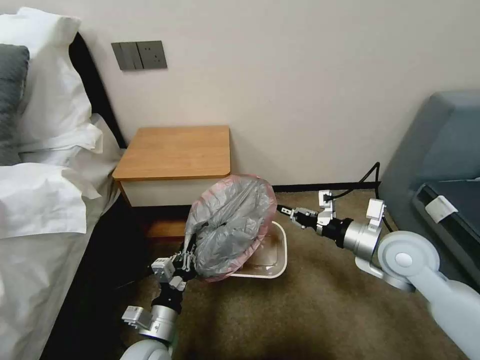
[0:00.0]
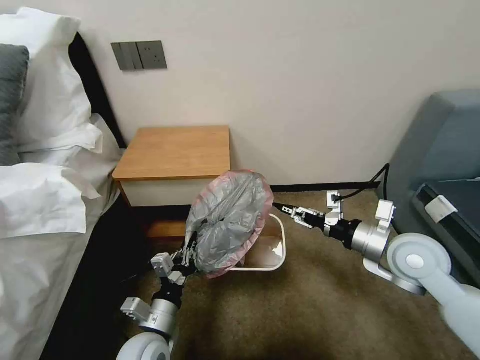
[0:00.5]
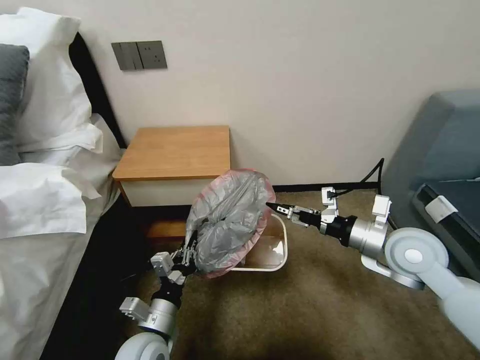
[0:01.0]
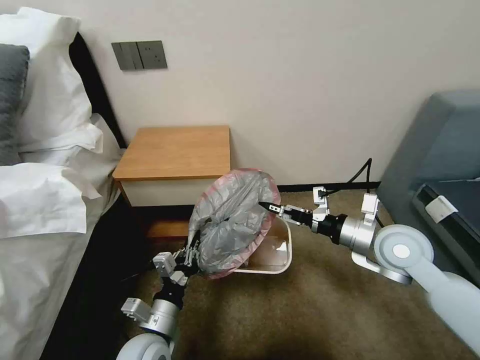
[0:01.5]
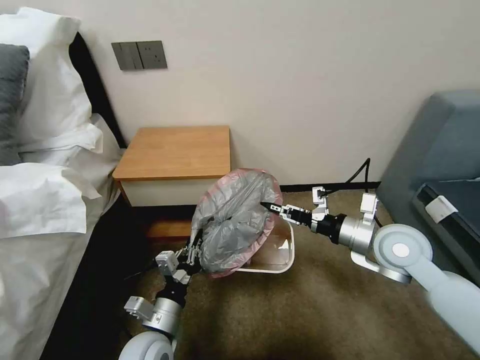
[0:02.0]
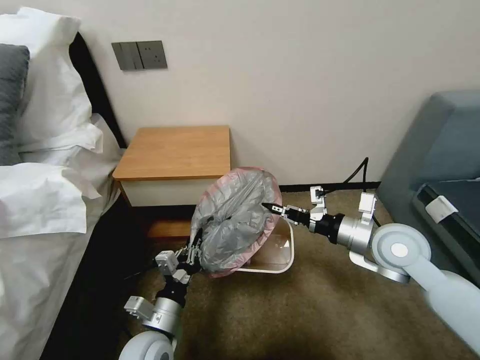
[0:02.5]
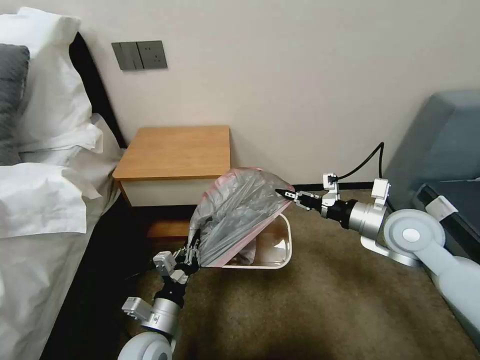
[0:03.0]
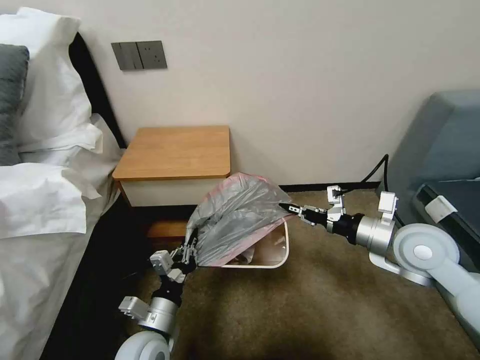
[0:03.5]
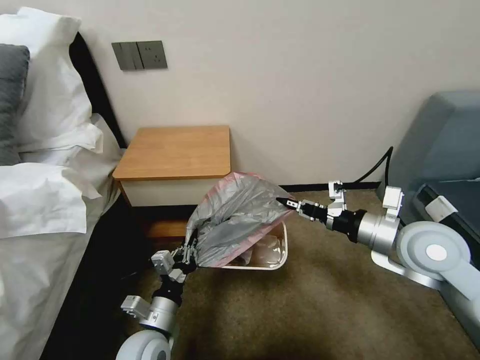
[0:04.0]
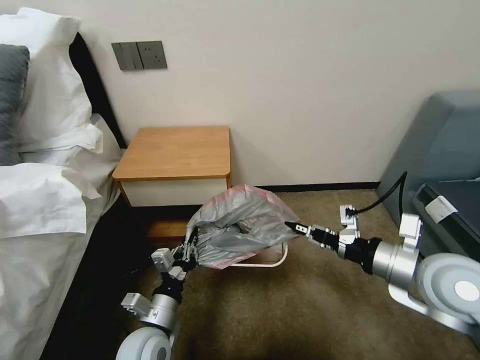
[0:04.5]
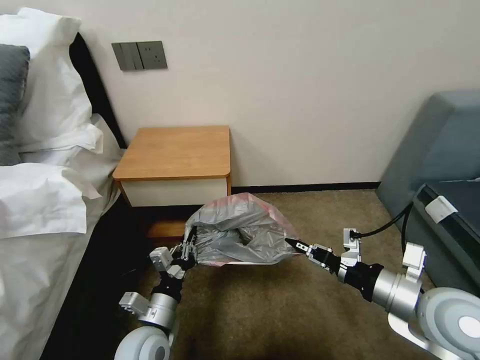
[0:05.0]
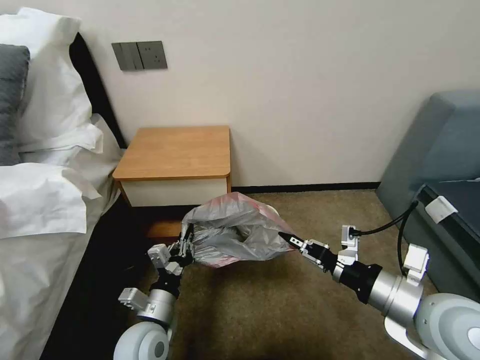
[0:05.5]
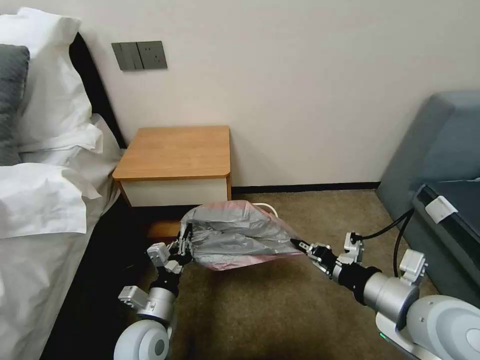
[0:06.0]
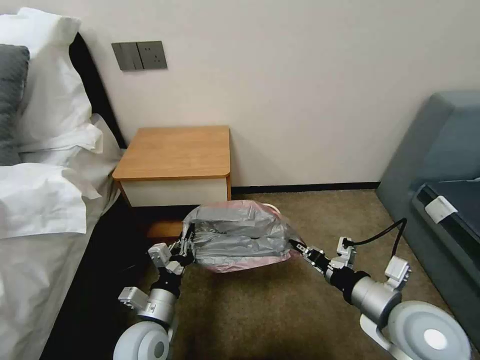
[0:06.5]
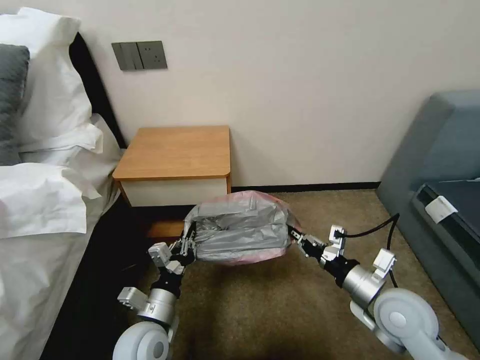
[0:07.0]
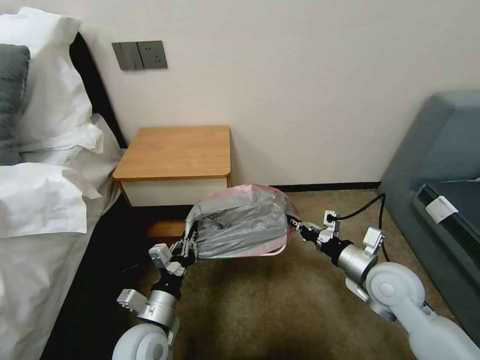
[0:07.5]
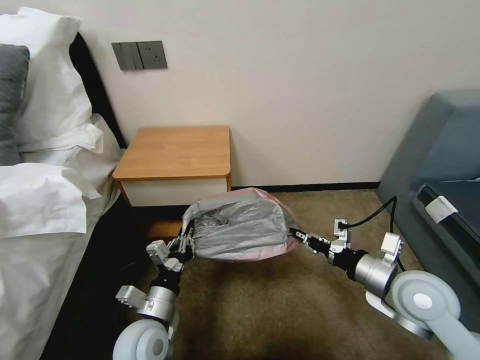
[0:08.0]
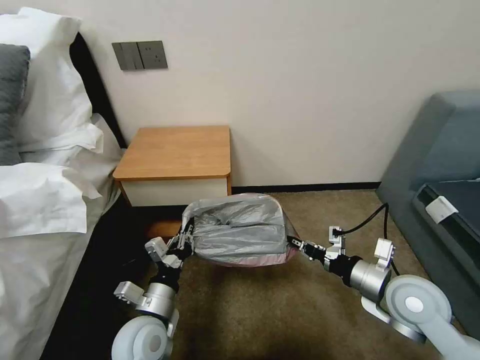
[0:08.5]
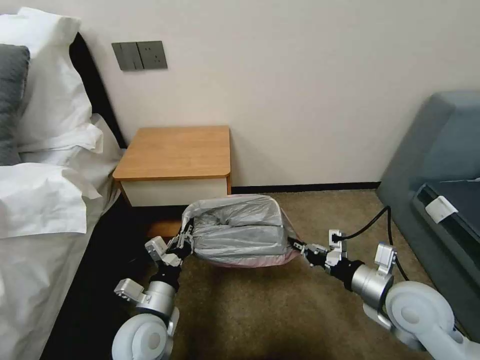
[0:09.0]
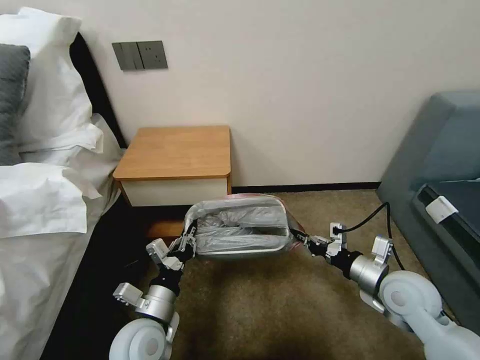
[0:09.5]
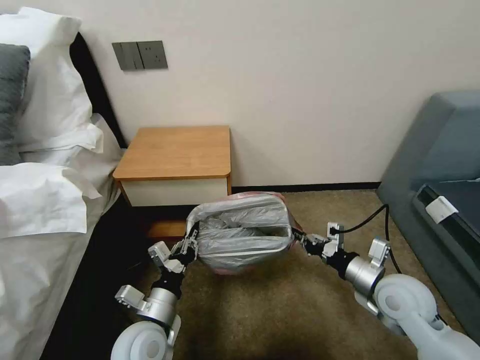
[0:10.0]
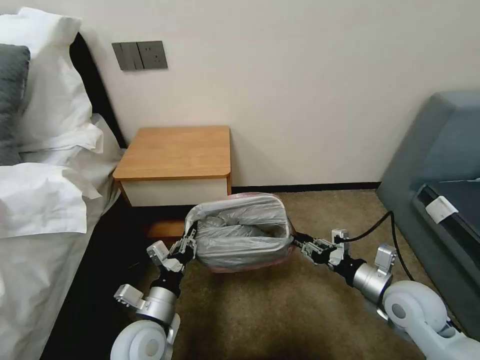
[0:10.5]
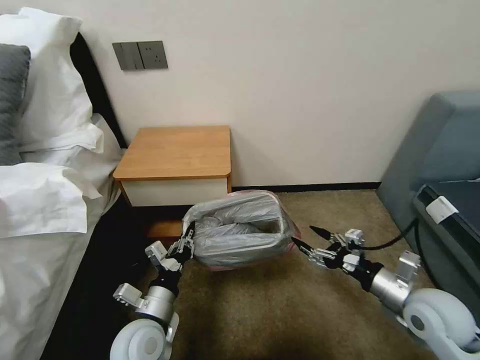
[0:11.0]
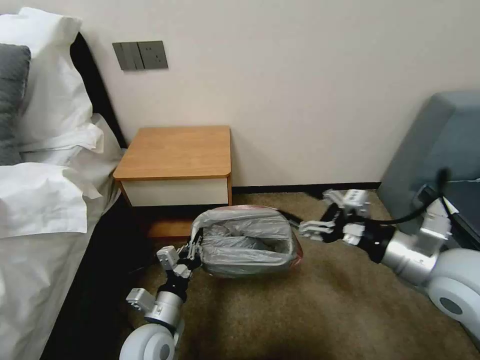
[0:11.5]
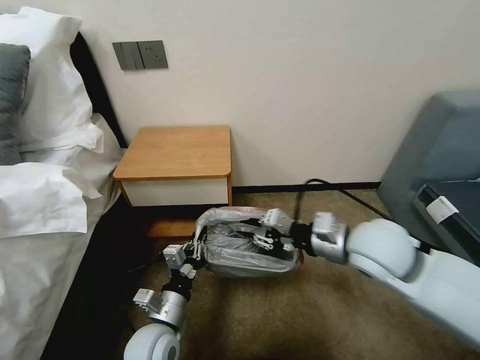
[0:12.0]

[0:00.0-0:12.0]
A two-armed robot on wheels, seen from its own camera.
Task of the whole recording: Pick up the garbage bag from the table and place it over the trash can.
0:00.0 to 0:02.0: The right gripper opens, then closes once more.
0:02.0 to 0:04.0: The right gripper changes place by approximately 5 cm.
0:04.0 to 0:06.0: The right gripper travels backward by approximately 10 cm.
0:06.0 to 0:08.0: The right gripper moves forward and downward, approximately 10 cm.
0:08.0 to 0:10.0: There are only small adjustments of the grippers.
0:10.0 to 0:12.0: The right gripper shifts roughly 15 cm upward and to the left, and opens and closes again.

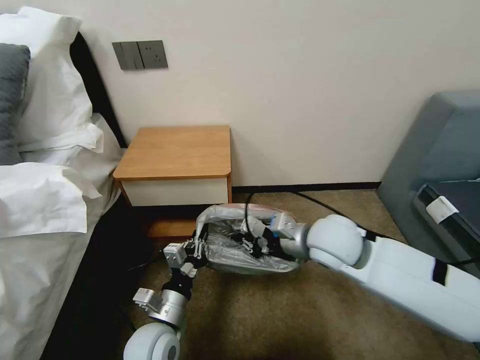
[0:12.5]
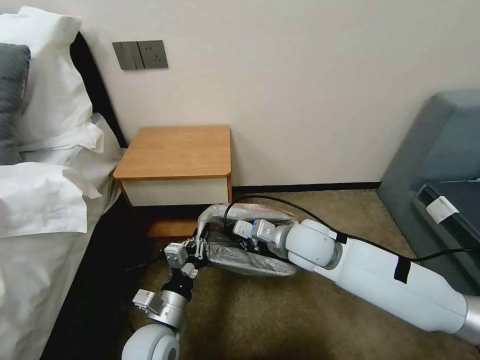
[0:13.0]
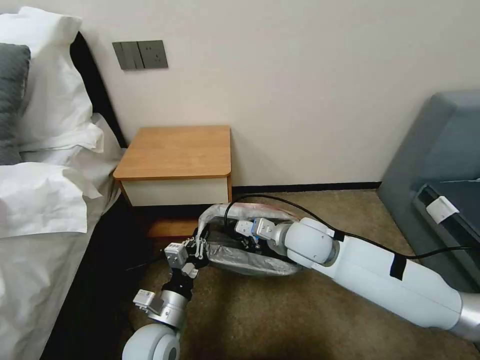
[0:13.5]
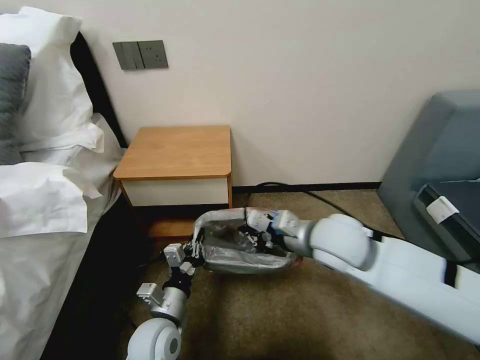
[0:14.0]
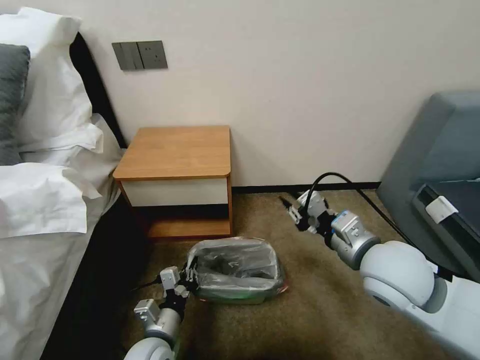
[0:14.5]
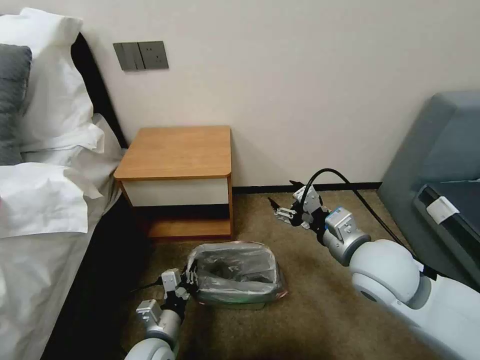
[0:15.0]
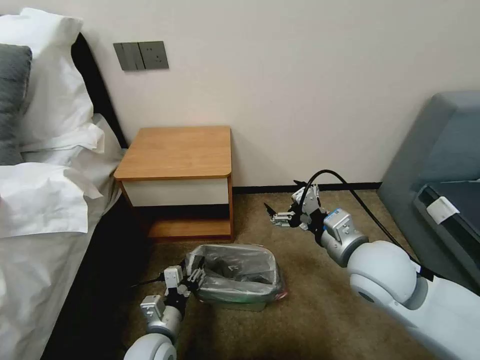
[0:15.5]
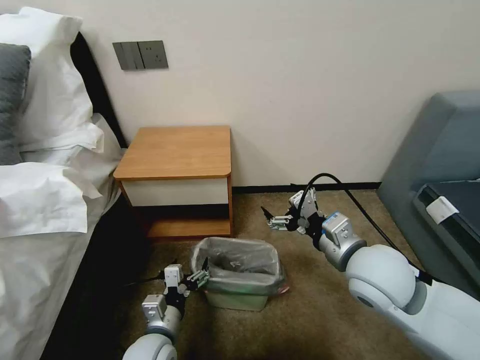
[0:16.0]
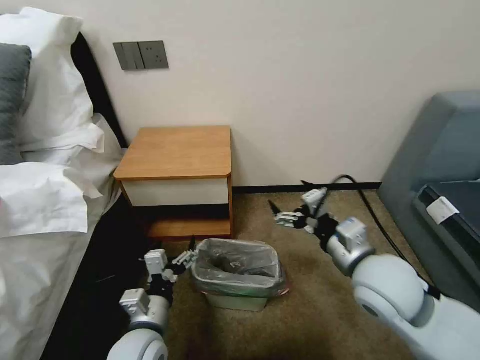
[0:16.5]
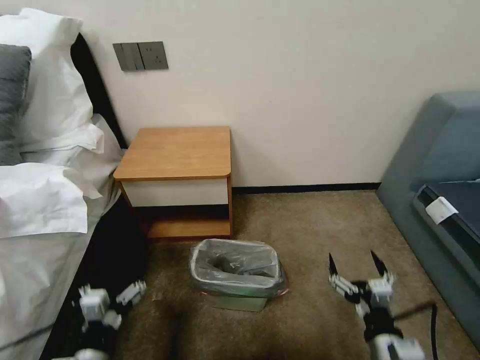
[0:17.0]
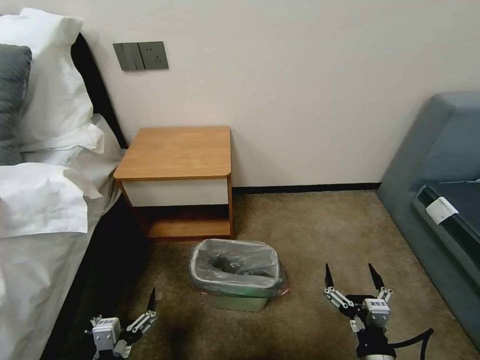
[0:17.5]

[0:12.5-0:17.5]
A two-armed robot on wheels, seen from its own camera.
Task of the whole recording: Pick up the garbage bag from the table and place it over the trash can.
0:12.5 to 0:15.0: The left gripper travels downward by about 5 cm. Meanwhile the right gripper shifts roughly 10 cm backward and to the right, and opens.
0:15.0 to 0:17.5: The right gripper travels backward and downward by roughly 25 cm, while the left gripper shifts about 15 cm backward and to the left, and opens up.

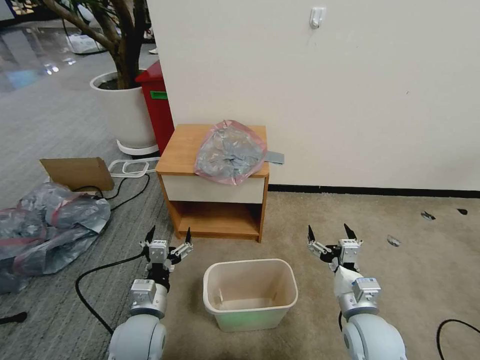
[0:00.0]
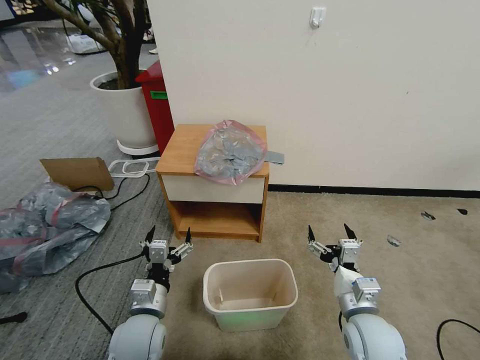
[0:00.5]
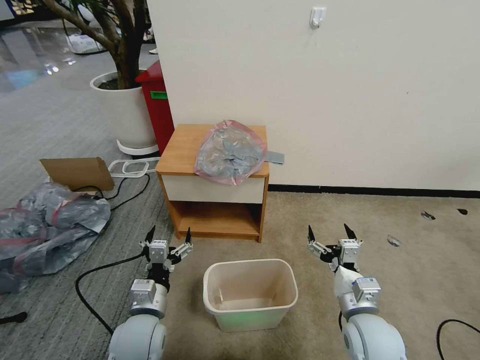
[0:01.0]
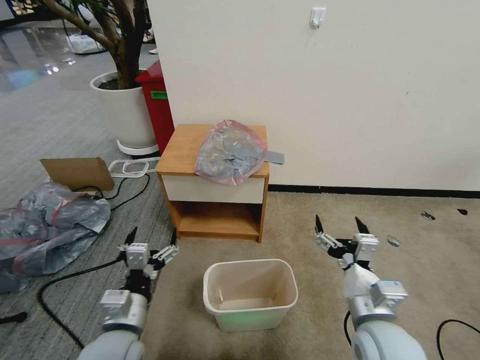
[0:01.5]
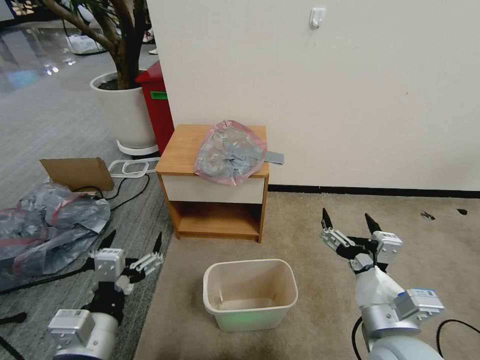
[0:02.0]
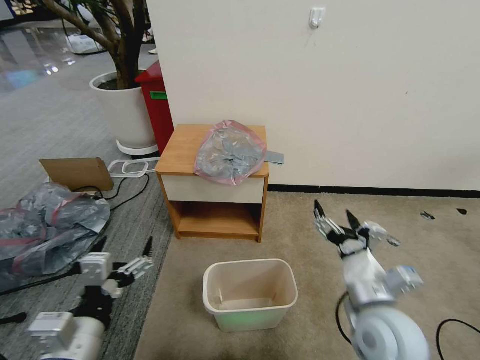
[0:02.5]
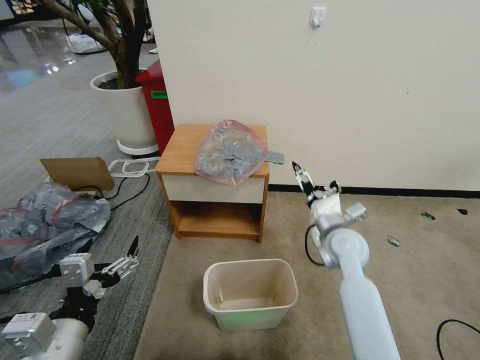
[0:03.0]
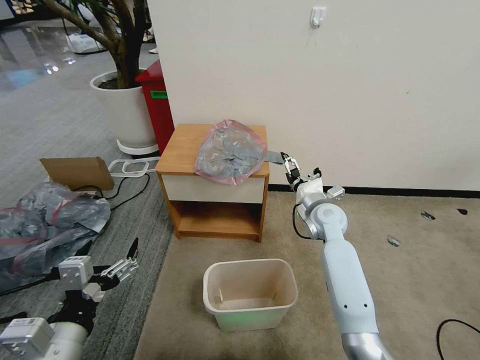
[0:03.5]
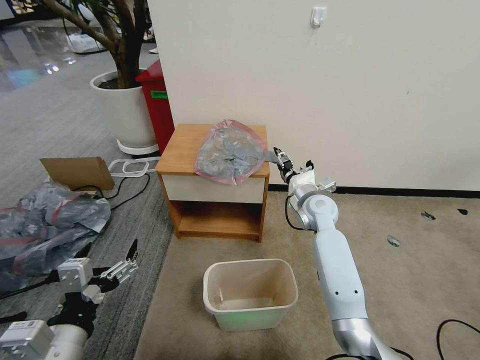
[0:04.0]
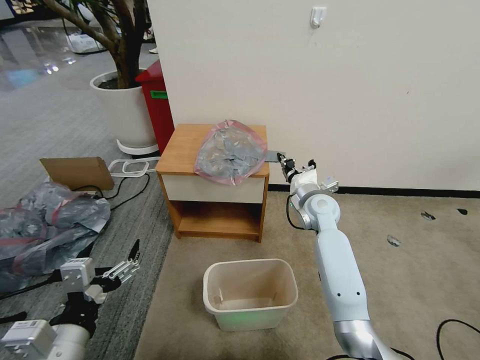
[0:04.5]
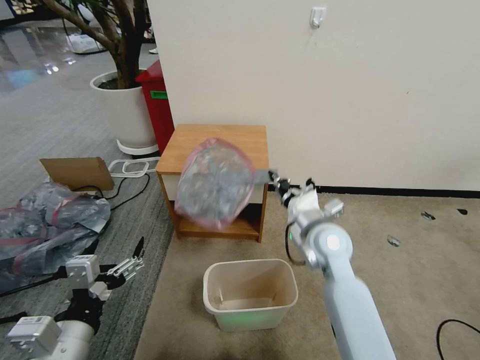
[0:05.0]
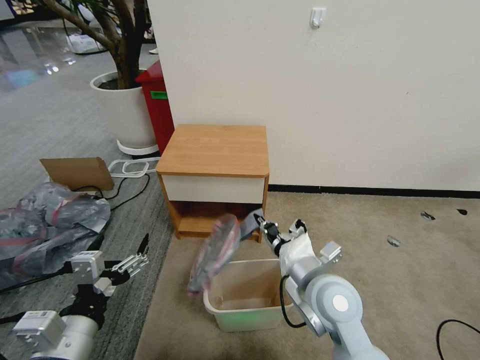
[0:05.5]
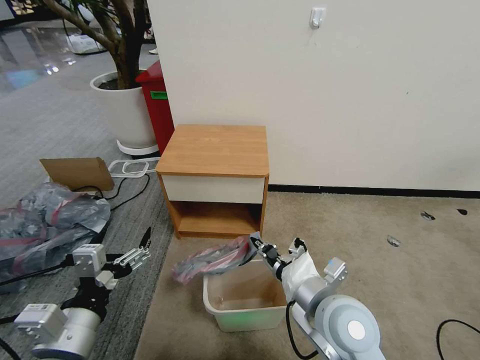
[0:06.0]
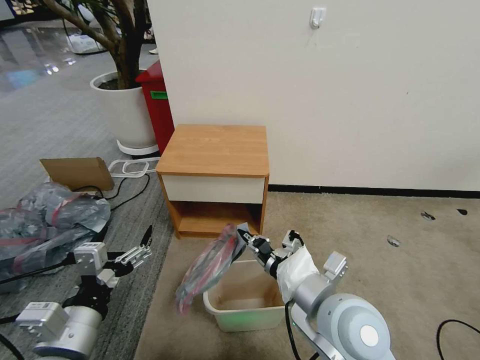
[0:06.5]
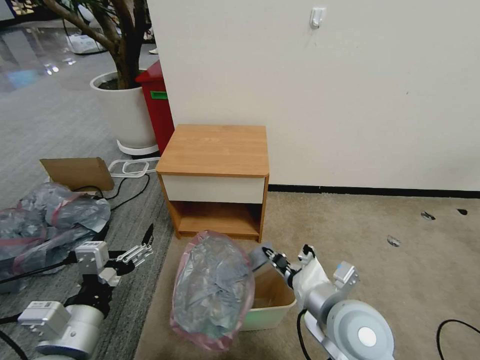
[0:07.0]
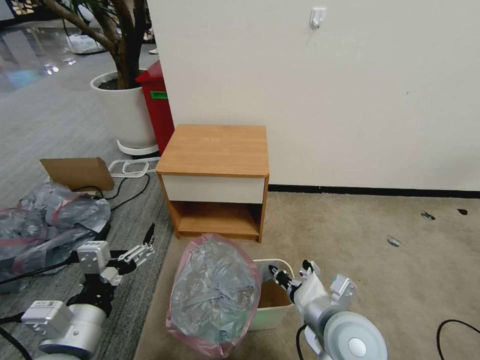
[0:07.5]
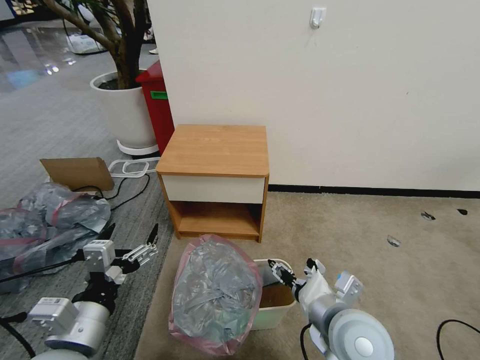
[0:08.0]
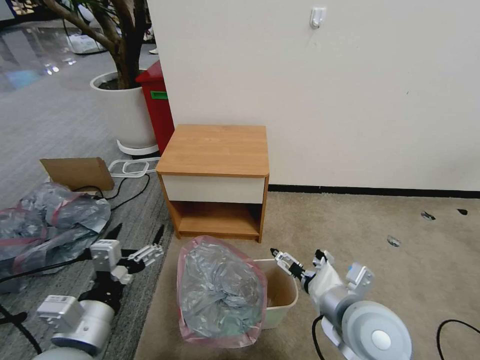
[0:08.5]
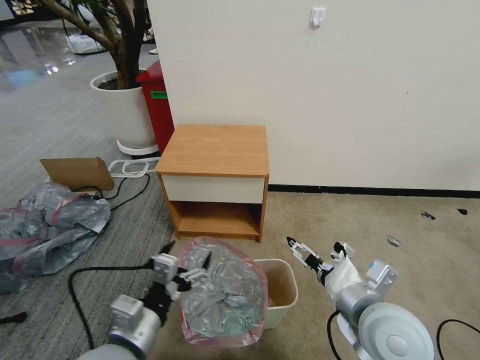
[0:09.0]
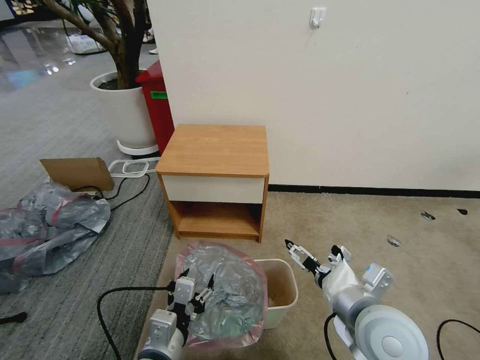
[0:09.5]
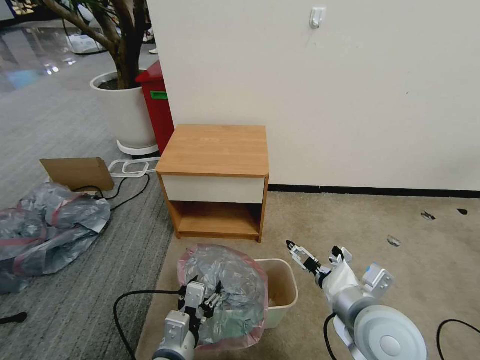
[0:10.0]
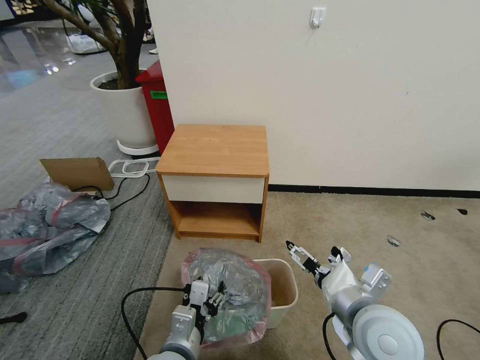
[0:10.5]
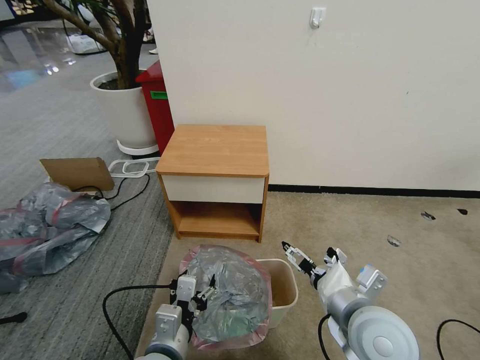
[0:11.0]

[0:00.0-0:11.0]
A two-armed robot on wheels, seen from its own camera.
Task of the whole recording: Pick up the garbage bag from the table and place it over the trash can.
0:02.0 to 0:03.5: The right gripper is displaced forward by some 30 cm.
0:03.5 to 0:05.5: The right gripper goes some 20 cm backward, and closes.
0:05.5 to 0:07.5: The right gripper goes about 5 cm backward.
0:07.5 to 0:09.0: The right gripper ends up approximately 5 cm from where it was, and opens. Meanwhile the left gripper heads to the right and downward, covering about 5 cm.
0:09.0 to 0:11.0: The left gripper moves to the right, some 5 cm.
